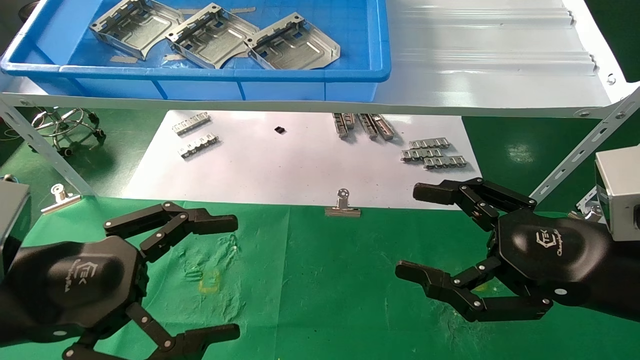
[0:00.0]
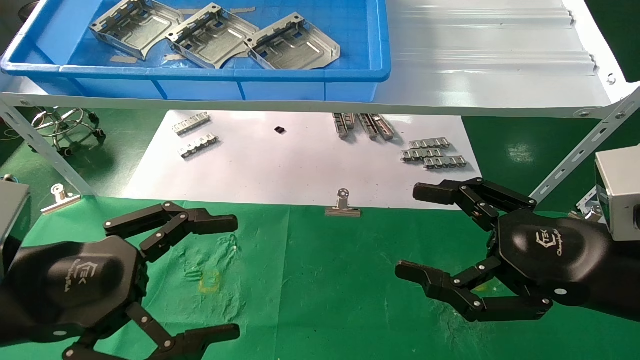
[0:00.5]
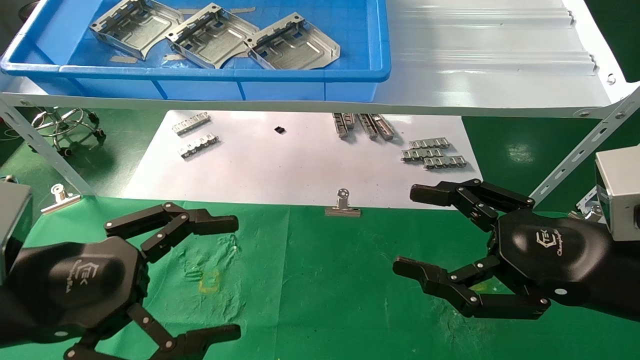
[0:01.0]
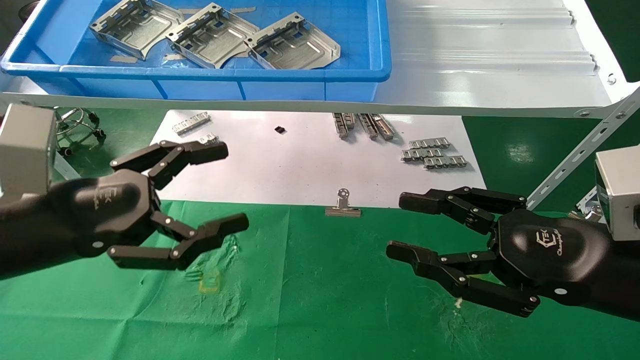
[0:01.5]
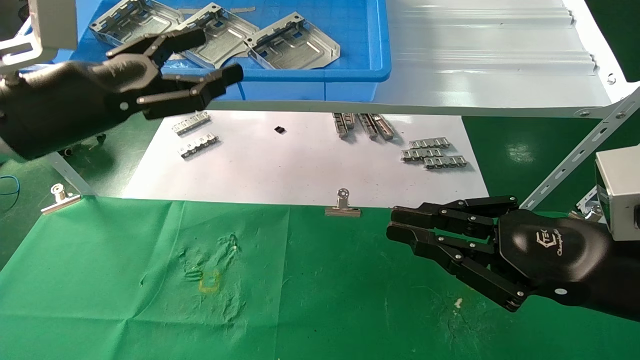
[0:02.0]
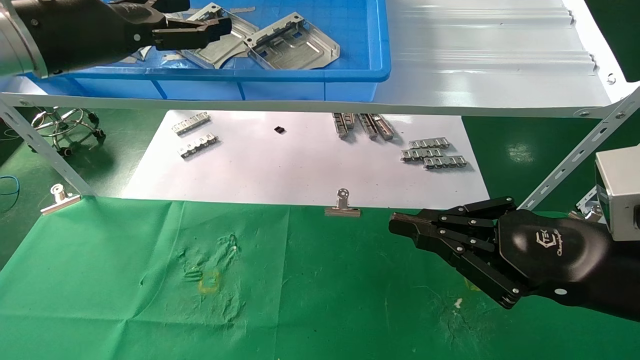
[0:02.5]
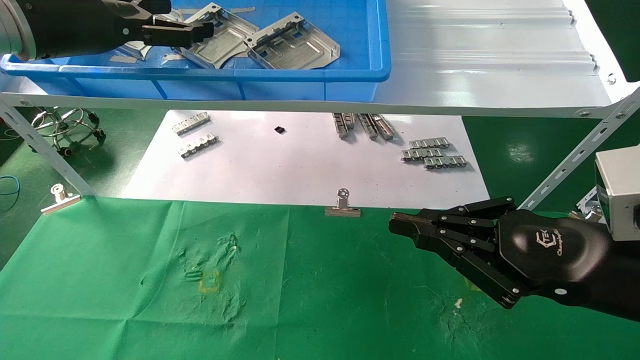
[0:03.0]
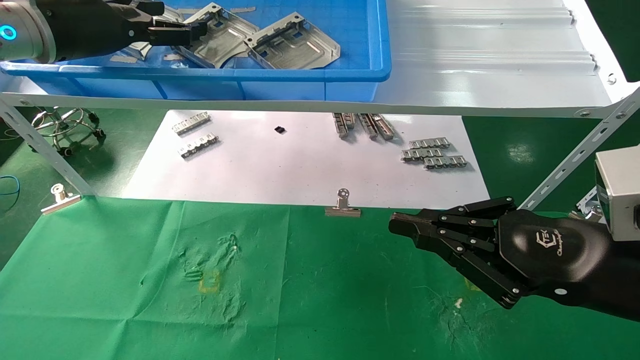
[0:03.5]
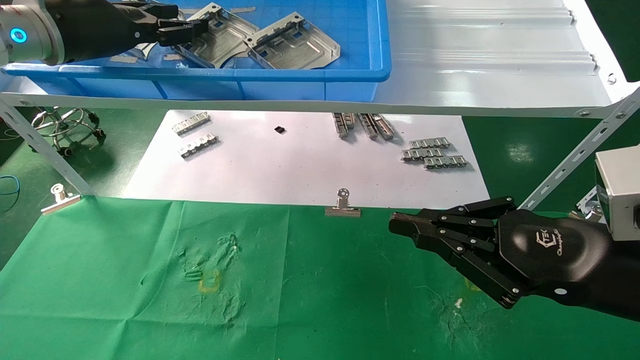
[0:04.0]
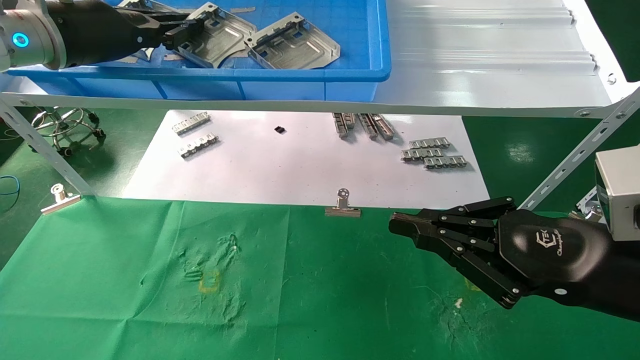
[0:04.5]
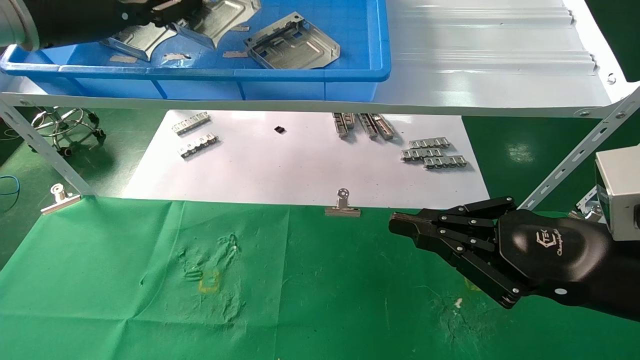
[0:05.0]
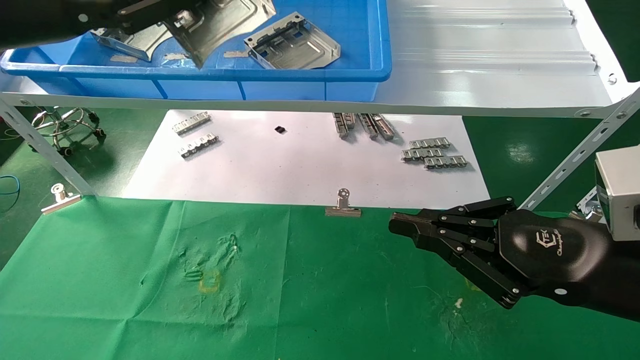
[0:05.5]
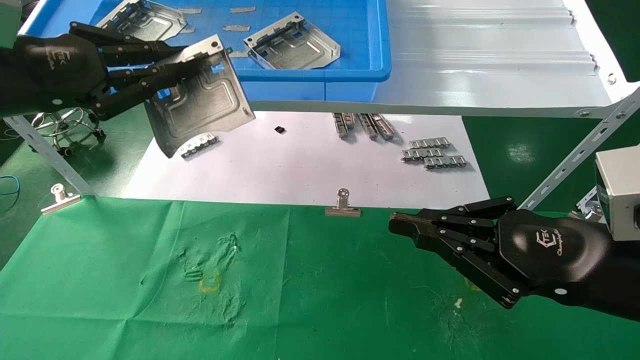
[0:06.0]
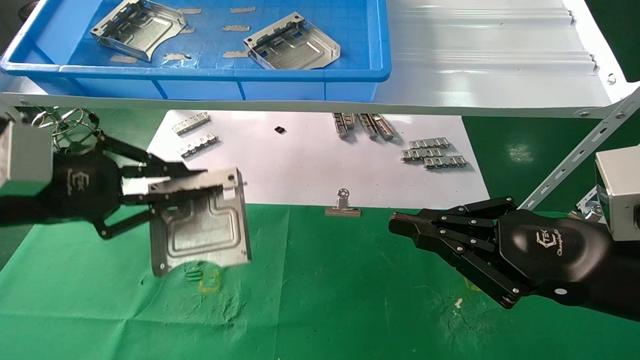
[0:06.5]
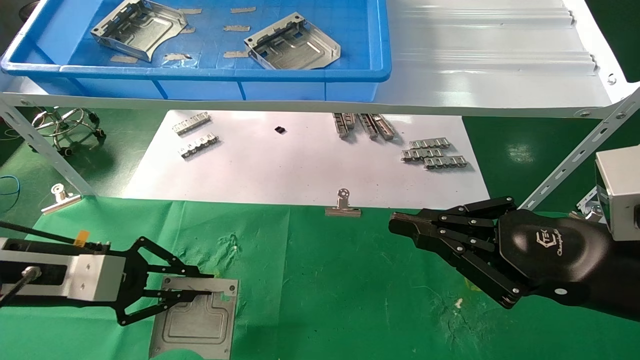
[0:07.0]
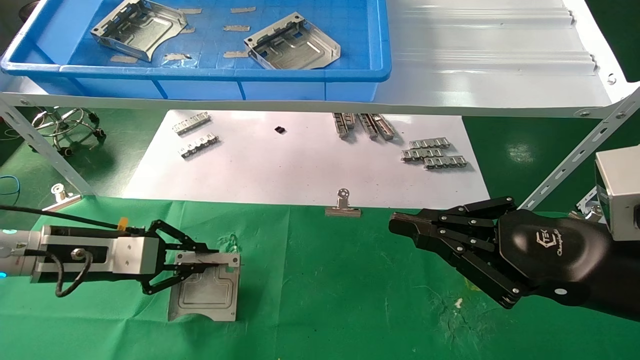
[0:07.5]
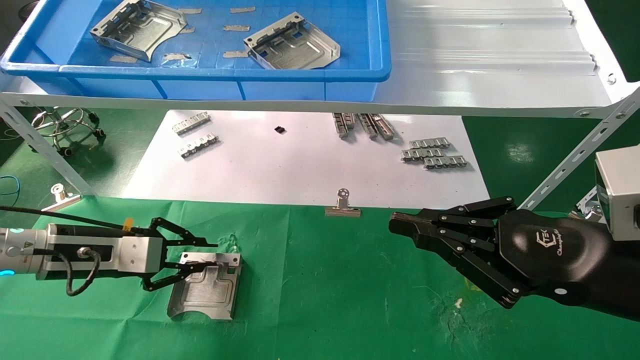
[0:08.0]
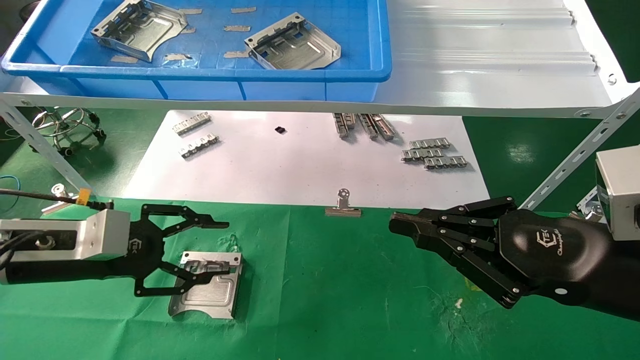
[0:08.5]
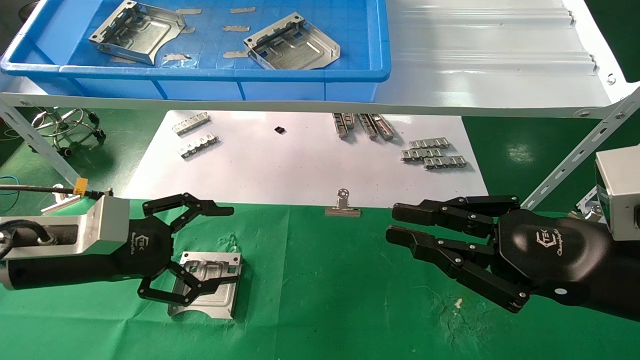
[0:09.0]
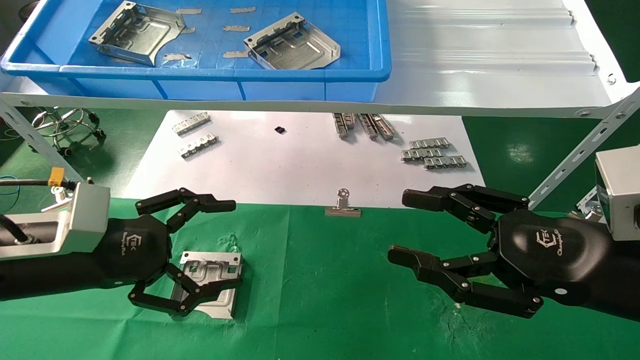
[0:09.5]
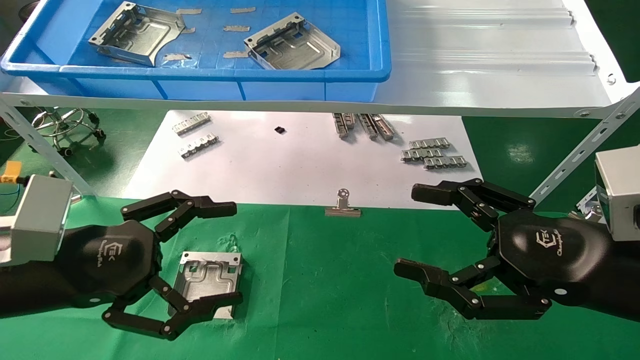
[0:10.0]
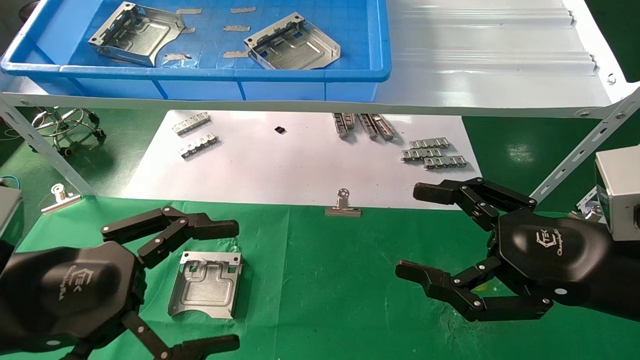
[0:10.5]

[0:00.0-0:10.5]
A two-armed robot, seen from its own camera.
Task of the whole recording: use the mechanical arm to pick up the parts and place them on the table.
Step, 0:01.5 to 0:04.5: Pick up the hard drive bracket from the feeding area.
Step, 0:05.0 to 0:08.0: Place the hard drive bracket into the box.
0:00.0 to 0:02.0: The right gripper closes its fingers. Meanwhile the left gripper heads forward and upward, covering roughly 15 cm.
0:02.0 to 0:04.0: The left gripper shifts some 15 cm forward and upward, and closes its fingers.
0:04.0 to 0:06.5: The left gripper moves downward and backward, about 20 cm, and closes.
0:06.5 to 0:08.5: The left gripper heads downward and forward, covering about 10 cm, and opens its fingers.
0:08.5 to 0:10.5: The right gripper opens, while the left gripper heads backward, covering about 15 cm, and opens up.
